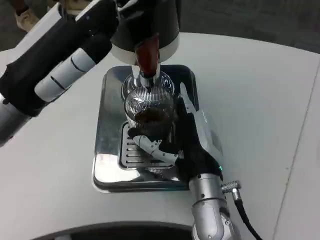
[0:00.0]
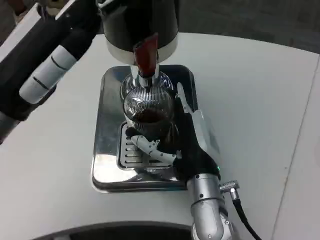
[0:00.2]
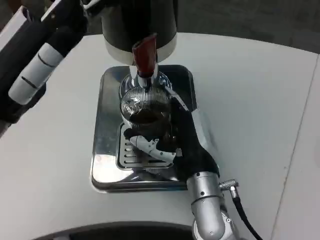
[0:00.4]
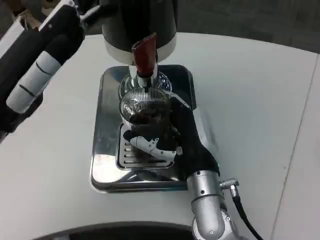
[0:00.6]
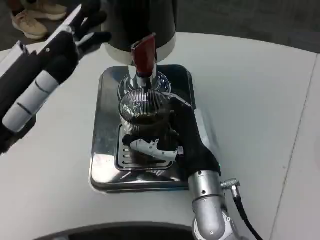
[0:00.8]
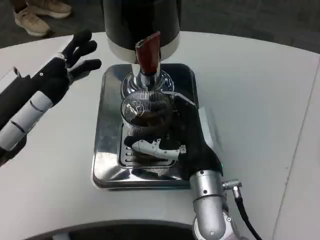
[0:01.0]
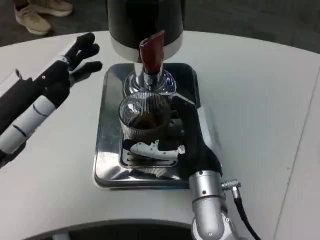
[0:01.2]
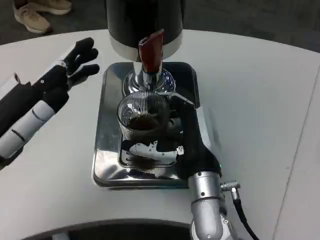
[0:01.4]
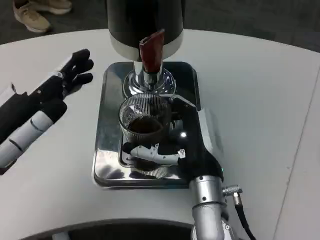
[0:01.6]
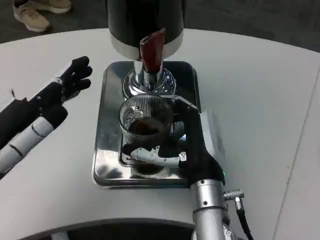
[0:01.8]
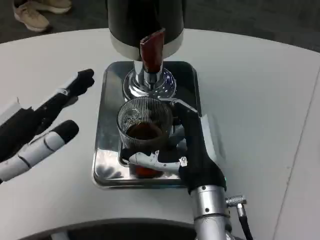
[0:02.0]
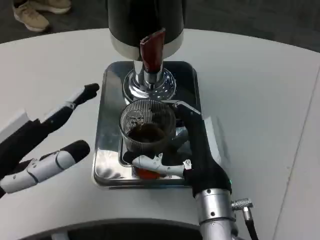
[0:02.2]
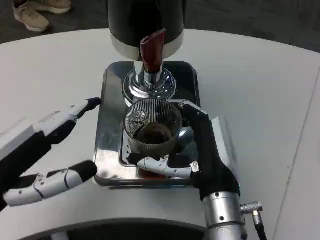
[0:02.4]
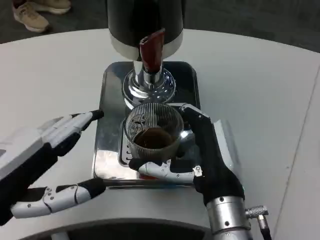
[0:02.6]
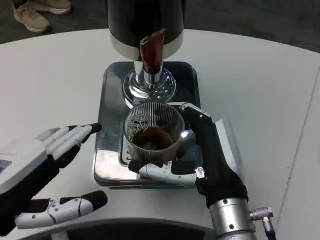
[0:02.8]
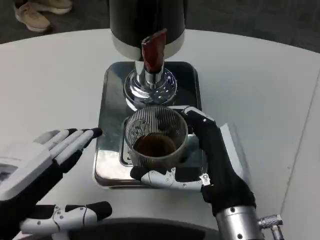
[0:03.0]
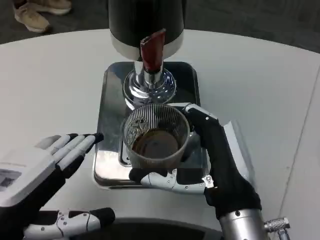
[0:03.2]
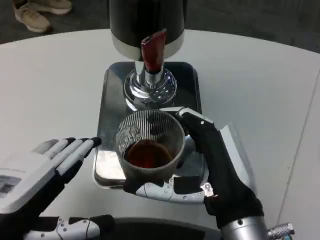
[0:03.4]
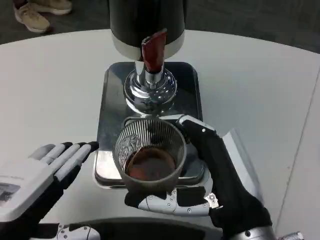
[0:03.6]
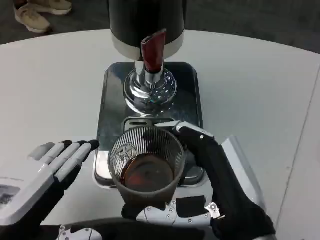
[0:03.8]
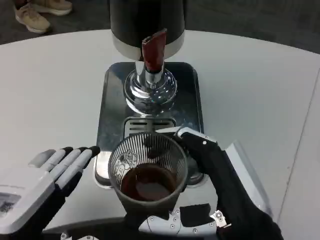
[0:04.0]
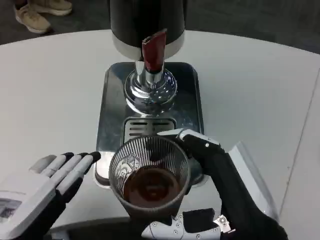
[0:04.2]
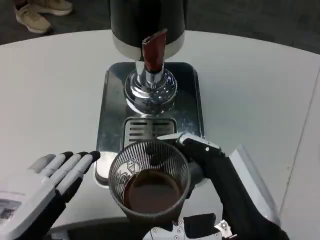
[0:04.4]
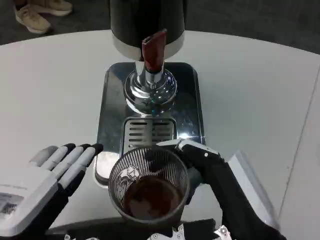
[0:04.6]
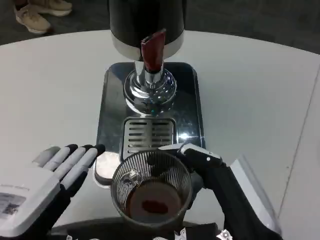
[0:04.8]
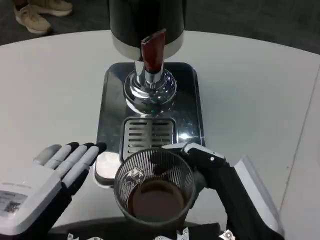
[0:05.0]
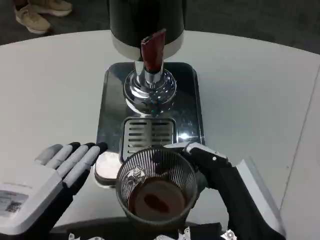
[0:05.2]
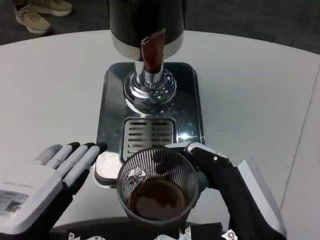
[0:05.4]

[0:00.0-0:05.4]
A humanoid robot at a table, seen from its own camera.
Task of the whole recording: Grasp the cup under the faucet to collect the drink, then remove the cup.
0:00.0 to 0:01.4: The left hand is displaced backward by roughly 5 cm.
0:01.4 to 0:02.8: Both hands move backward, some 5 cm.
0:02.8 to 0:04.0: The right hand travels backward by approximately 10 cm.
0:04.0 to 0:05.4: The hands move only a little.

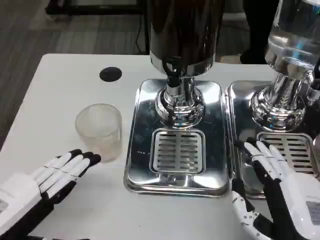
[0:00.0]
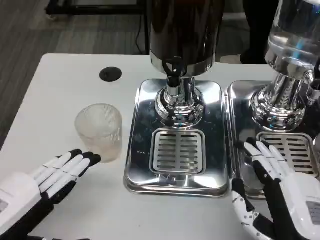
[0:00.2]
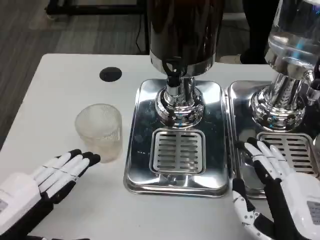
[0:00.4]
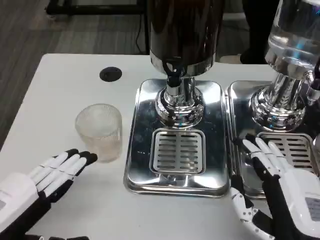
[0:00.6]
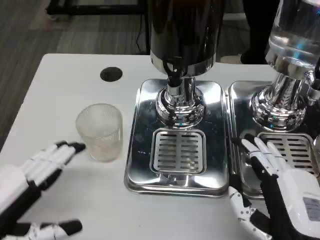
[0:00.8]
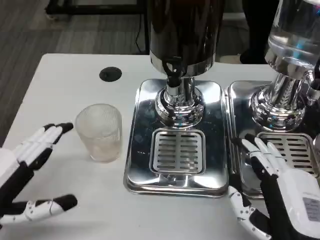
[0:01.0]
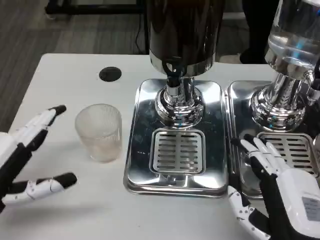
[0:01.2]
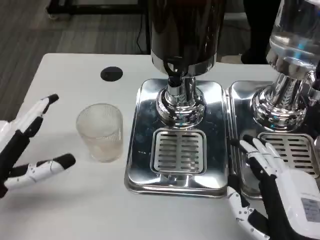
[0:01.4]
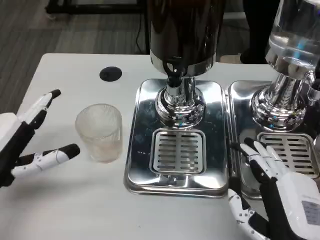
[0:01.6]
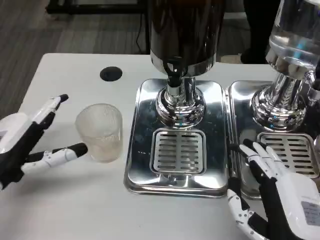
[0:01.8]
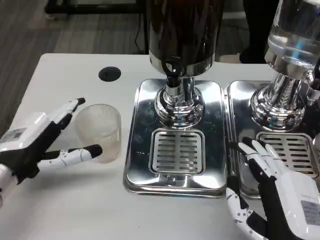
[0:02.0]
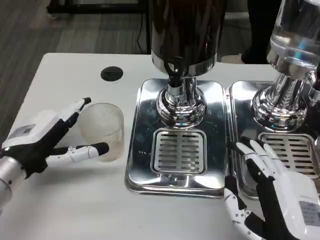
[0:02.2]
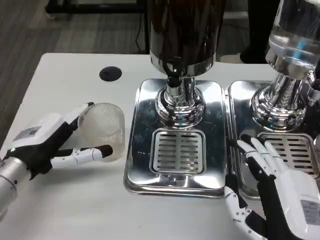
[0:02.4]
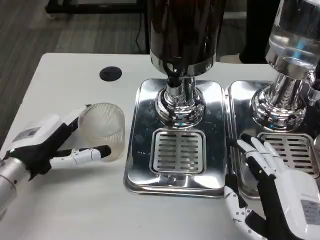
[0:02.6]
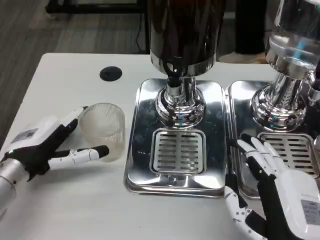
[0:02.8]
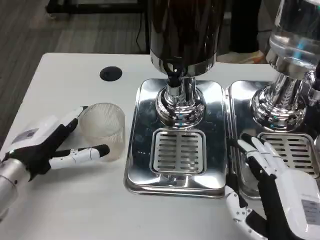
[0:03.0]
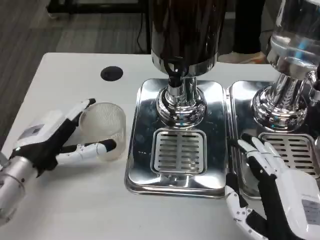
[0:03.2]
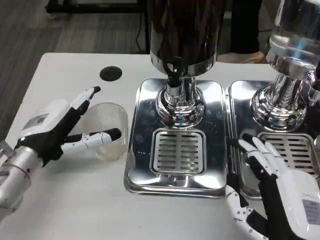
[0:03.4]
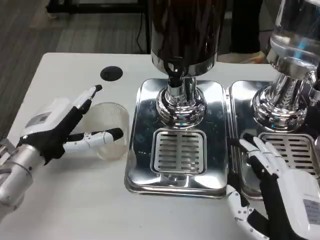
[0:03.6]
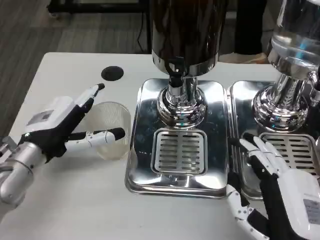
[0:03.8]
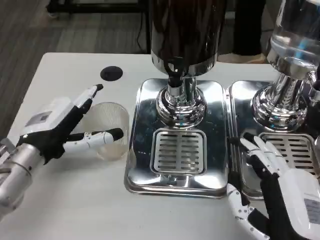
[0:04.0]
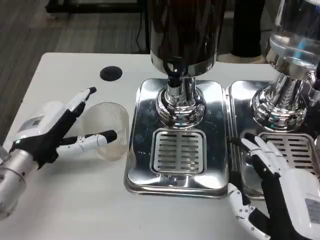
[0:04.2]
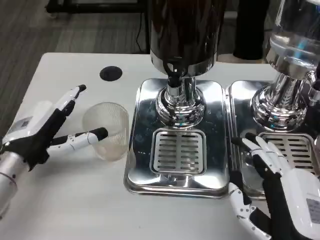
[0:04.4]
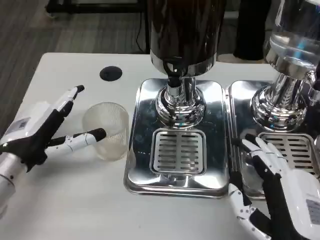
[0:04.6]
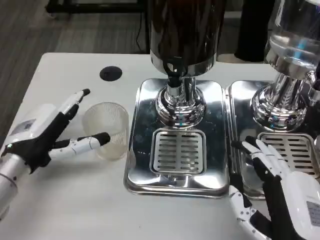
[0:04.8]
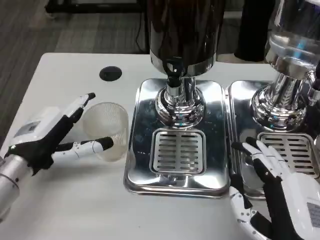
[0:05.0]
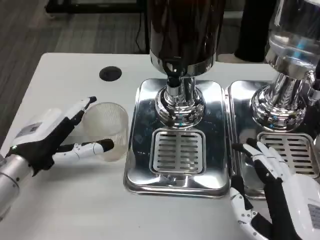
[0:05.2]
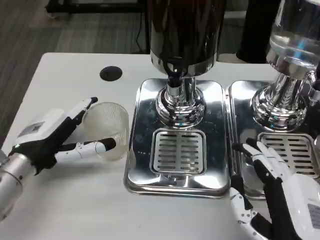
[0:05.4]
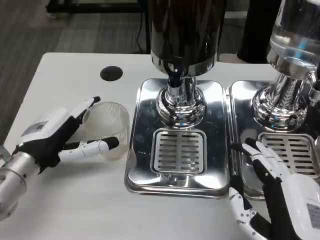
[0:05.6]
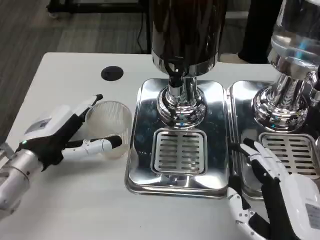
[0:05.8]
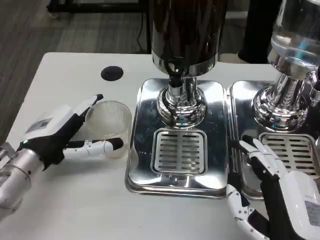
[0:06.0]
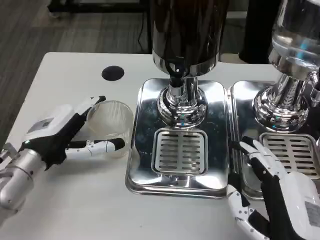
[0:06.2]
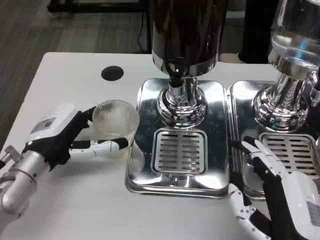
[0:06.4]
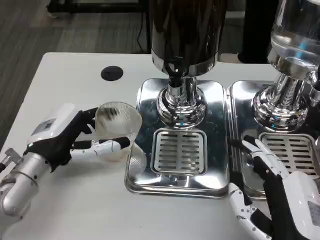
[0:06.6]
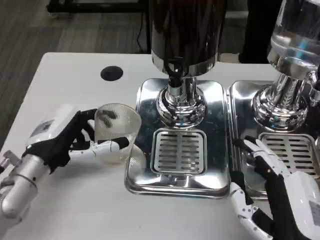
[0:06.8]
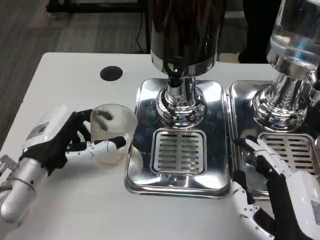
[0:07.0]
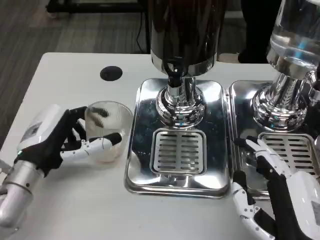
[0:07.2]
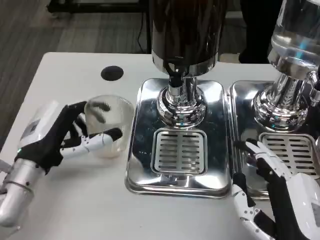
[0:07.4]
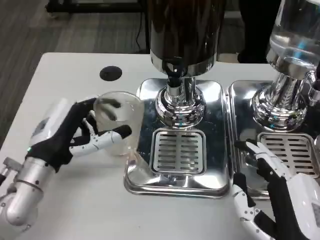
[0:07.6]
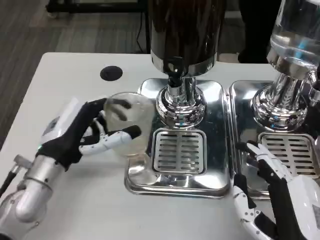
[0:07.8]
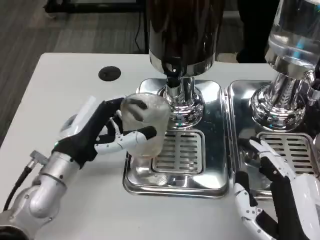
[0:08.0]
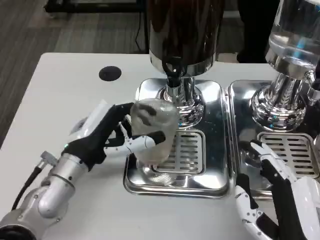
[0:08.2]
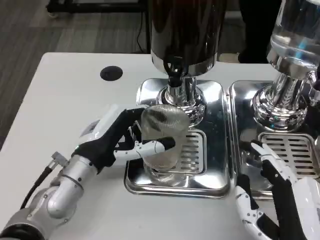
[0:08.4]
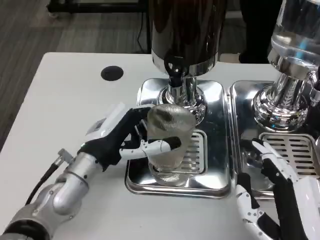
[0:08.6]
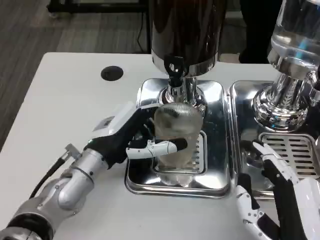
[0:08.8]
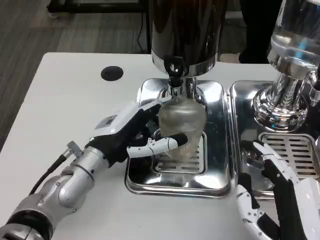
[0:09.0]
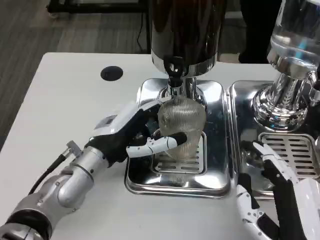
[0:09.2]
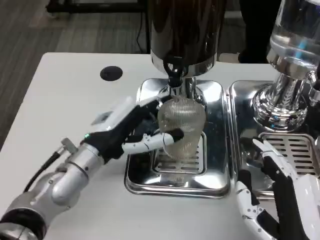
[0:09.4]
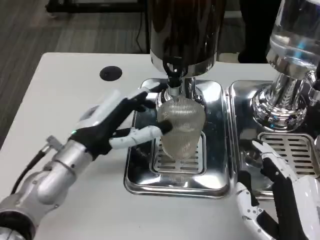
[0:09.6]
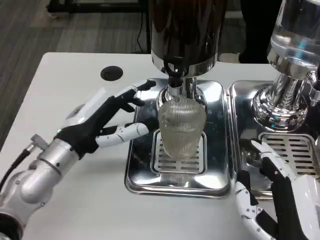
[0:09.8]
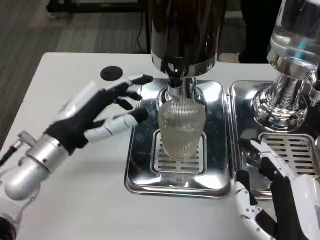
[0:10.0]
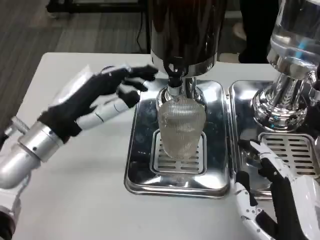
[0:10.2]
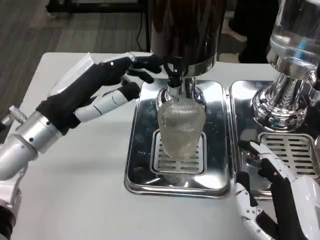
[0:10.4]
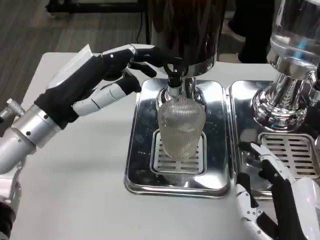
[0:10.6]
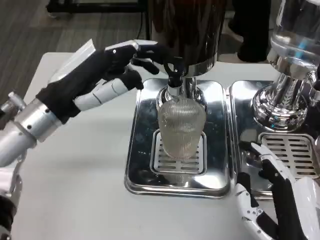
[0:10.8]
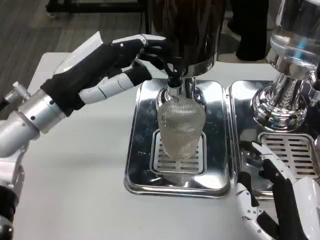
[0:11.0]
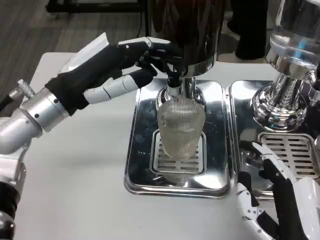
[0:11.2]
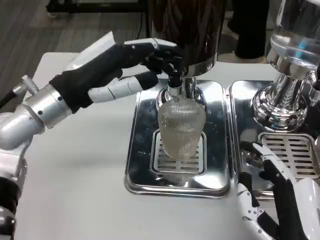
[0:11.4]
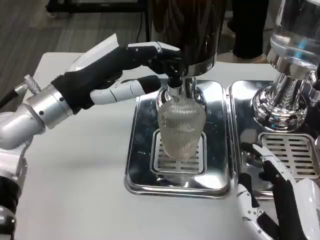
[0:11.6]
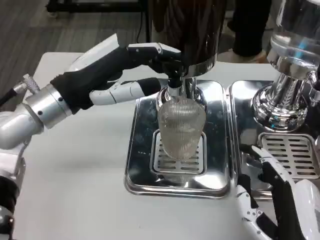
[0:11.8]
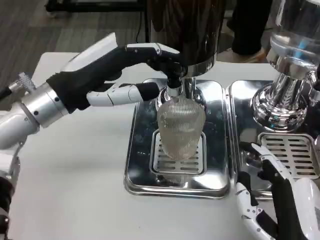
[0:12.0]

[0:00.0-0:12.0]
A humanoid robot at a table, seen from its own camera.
Task of the whole recording: Grasp the cup under the faucet to collect the drink, then remove the cup.
0:00.0 to 0:01.6: The left hand moves forward, approximately 10 cm.
0:01.6 to 0:03.0: The left hand moves about 5 cm.
0:03.0 to 0:04.4: There are only small adjustments of the hands.
0:07.6 to 0:09.0: The left hand heads to the right, covering approximately 5 cm.
0:09.0 to 0:10.4: The left hand goes about 10 cm upward and to the left.
0:10.4 to 0:12.0: The hands stay close to where they were, moving slightly.

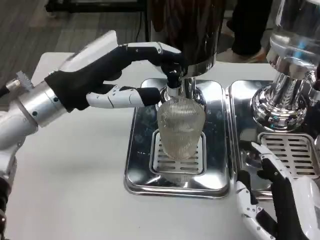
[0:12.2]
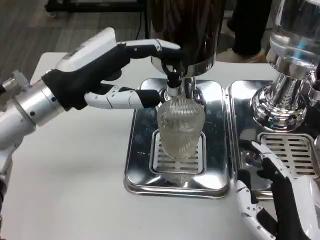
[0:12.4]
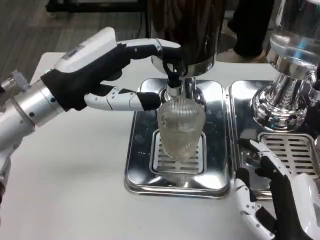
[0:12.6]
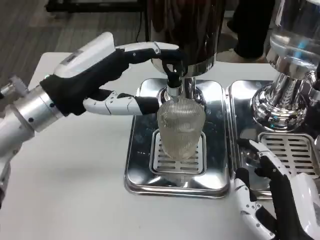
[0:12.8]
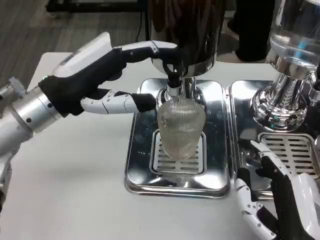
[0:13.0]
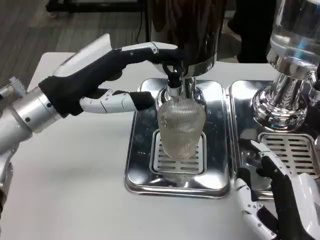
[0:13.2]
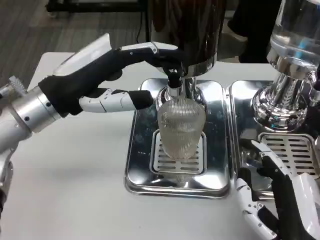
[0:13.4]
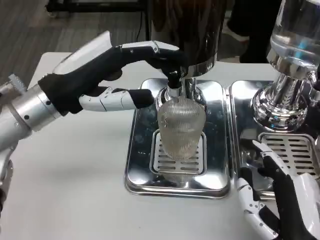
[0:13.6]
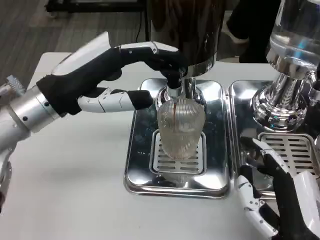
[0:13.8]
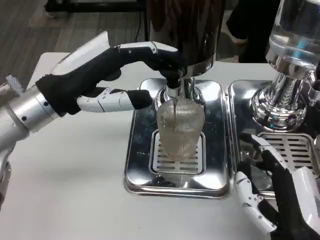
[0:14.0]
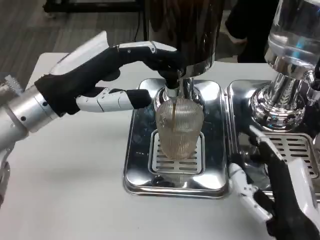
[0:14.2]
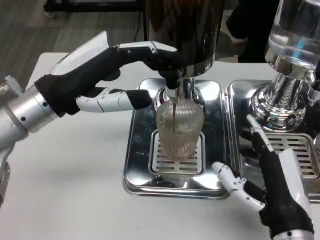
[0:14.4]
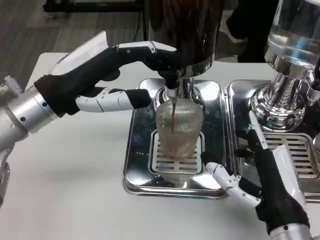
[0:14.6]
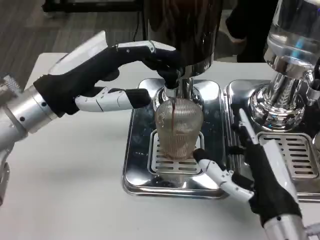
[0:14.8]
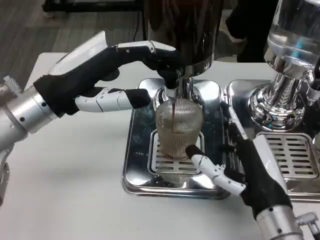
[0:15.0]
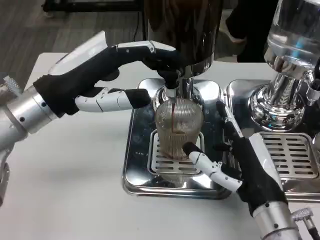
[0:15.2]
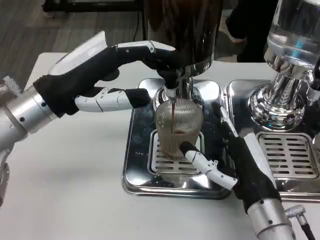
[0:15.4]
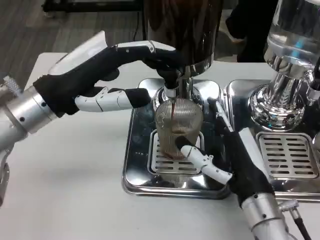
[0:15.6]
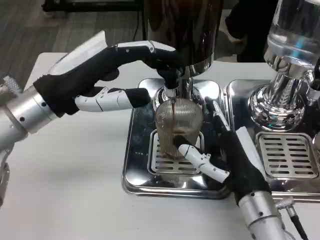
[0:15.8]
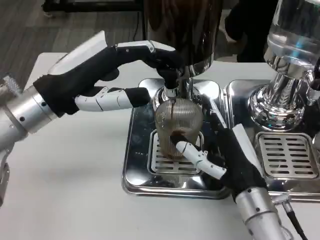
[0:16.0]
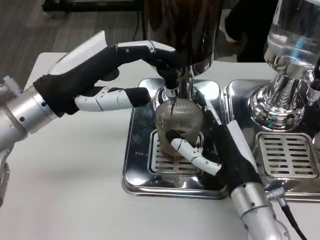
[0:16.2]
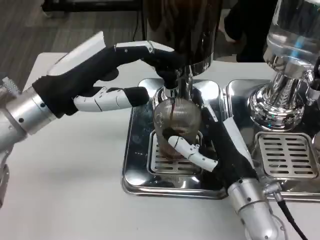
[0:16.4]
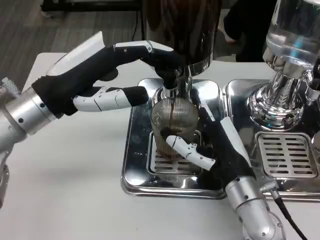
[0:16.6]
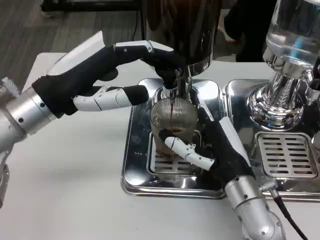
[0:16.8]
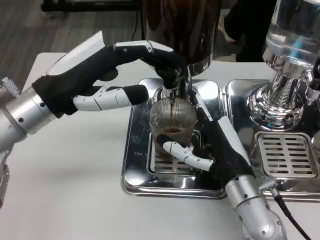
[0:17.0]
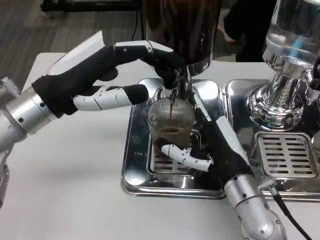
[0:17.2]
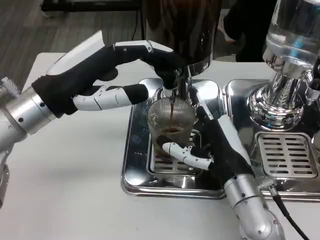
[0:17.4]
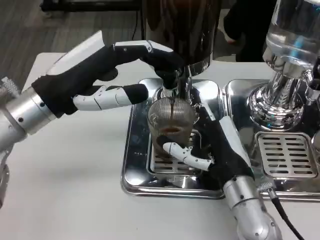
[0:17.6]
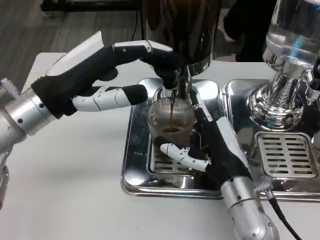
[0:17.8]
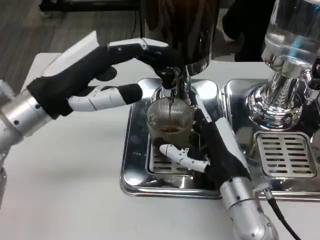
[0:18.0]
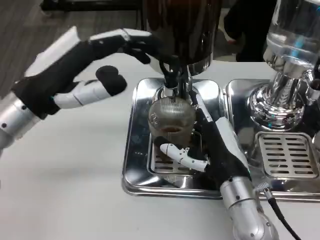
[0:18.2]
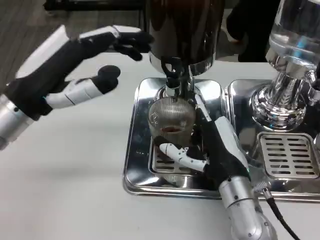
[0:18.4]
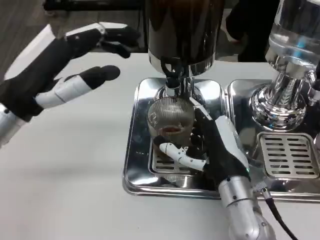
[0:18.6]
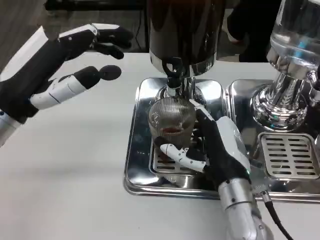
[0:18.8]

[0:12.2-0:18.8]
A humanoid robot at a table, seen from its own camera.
Task of the whole recording: Grasp the cup under the faucet to collect the drink, then remove the cup.
0:12.2 to 0:13.8: Neither hand changes place.
0:13.8 to 0:15.4: The right hand travels forward by approximately 10 cm.
